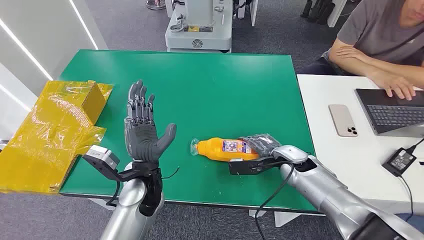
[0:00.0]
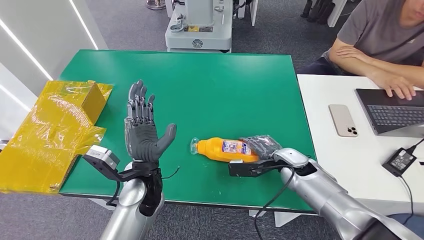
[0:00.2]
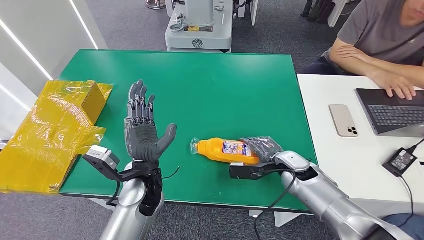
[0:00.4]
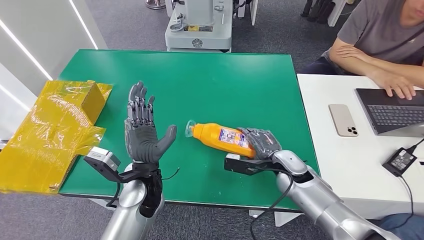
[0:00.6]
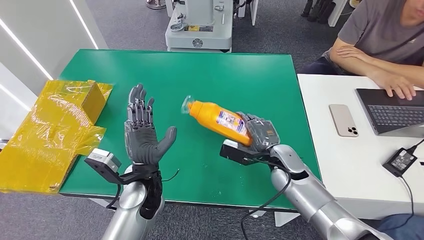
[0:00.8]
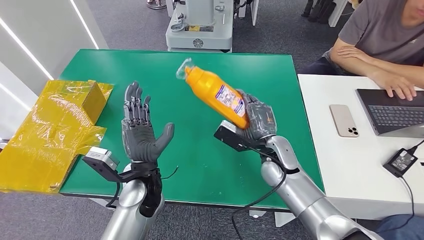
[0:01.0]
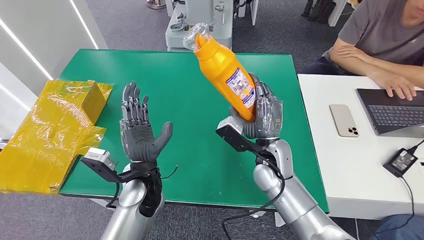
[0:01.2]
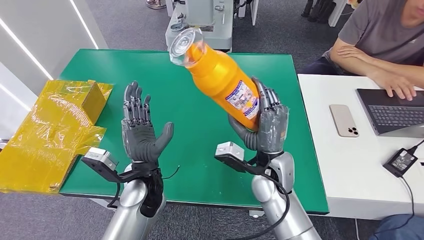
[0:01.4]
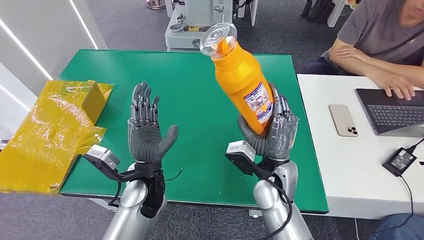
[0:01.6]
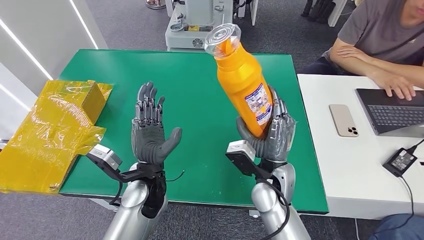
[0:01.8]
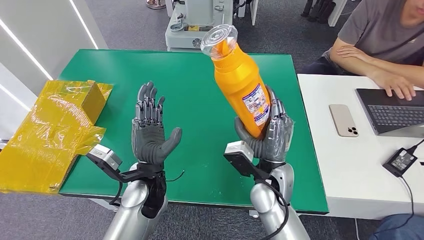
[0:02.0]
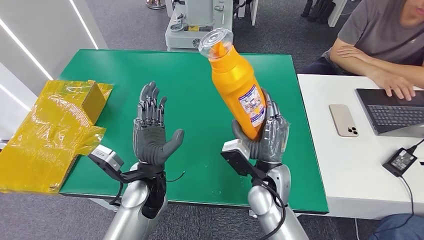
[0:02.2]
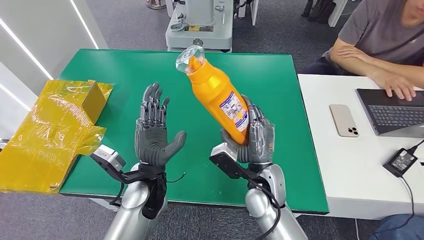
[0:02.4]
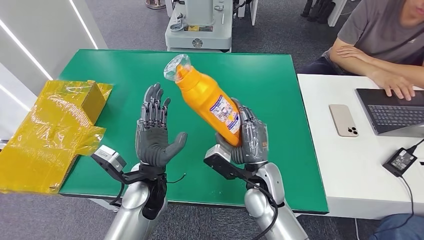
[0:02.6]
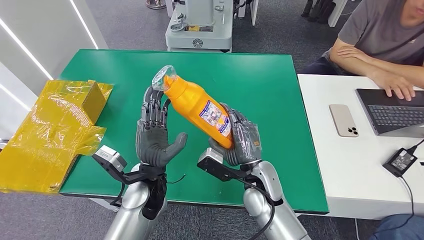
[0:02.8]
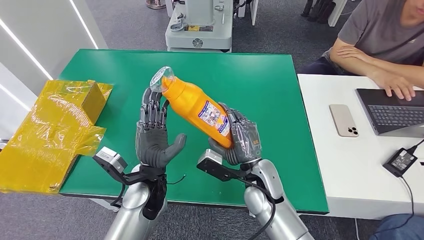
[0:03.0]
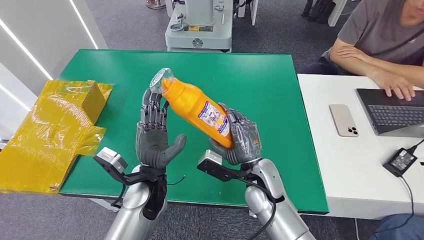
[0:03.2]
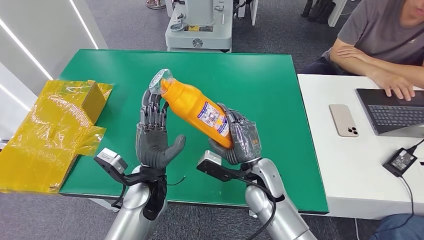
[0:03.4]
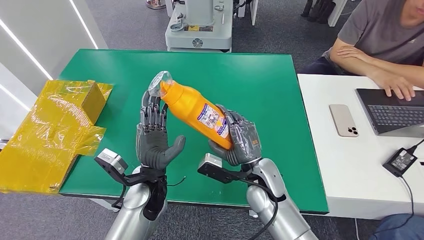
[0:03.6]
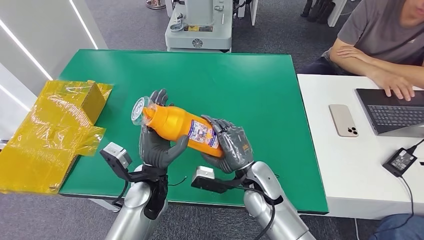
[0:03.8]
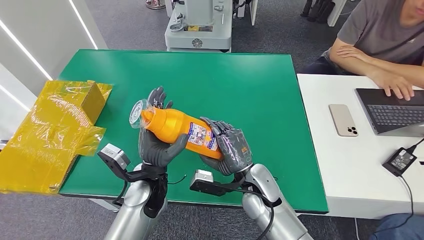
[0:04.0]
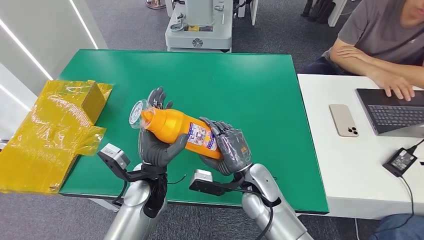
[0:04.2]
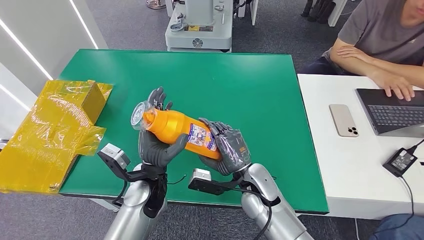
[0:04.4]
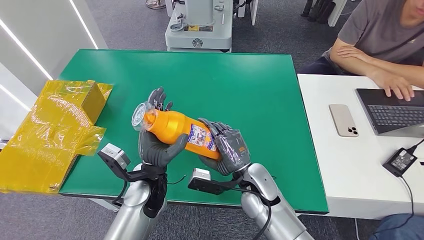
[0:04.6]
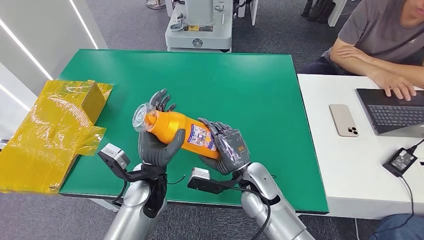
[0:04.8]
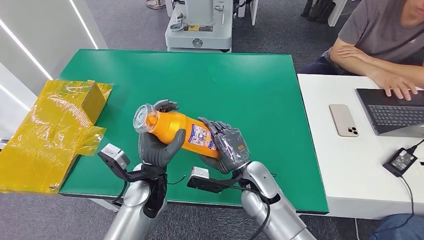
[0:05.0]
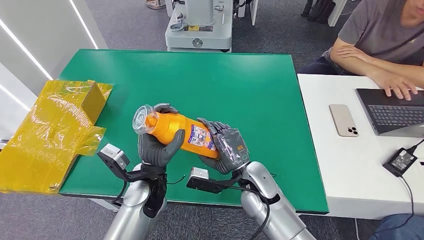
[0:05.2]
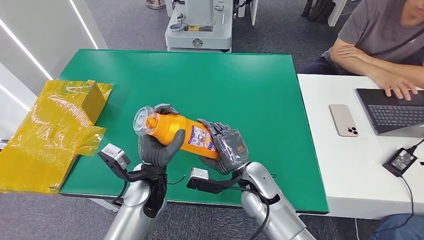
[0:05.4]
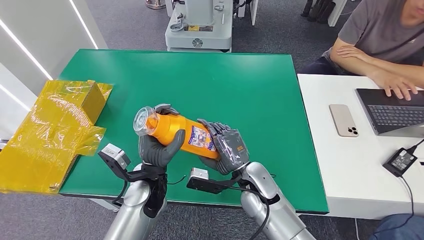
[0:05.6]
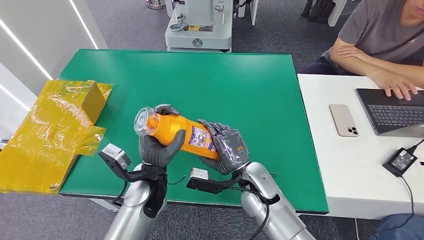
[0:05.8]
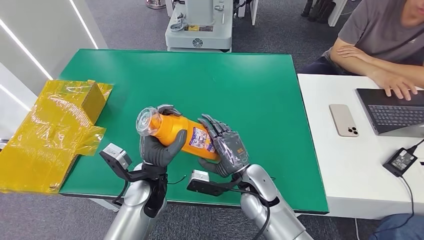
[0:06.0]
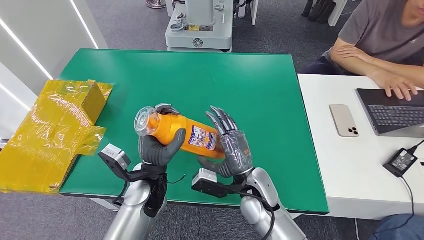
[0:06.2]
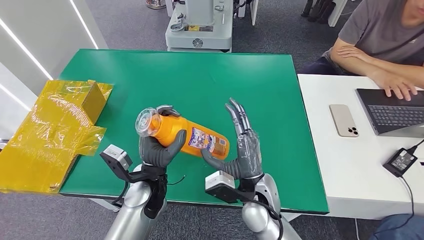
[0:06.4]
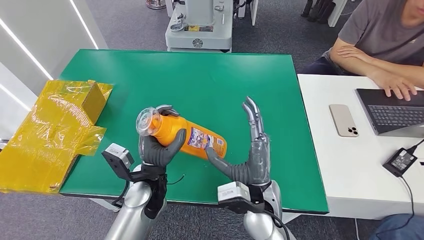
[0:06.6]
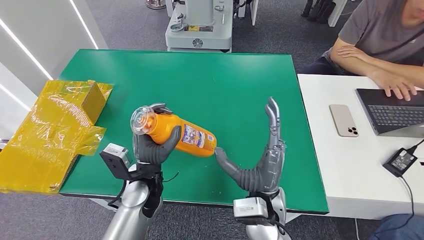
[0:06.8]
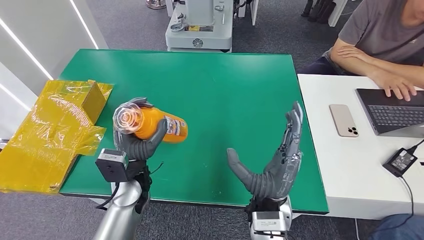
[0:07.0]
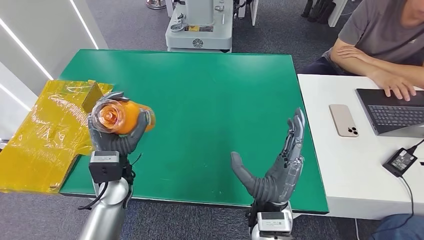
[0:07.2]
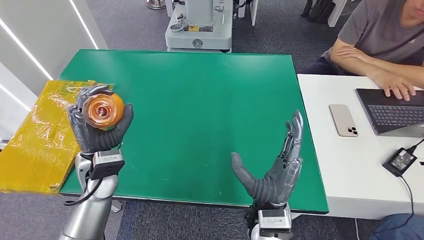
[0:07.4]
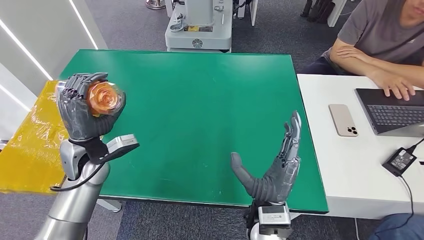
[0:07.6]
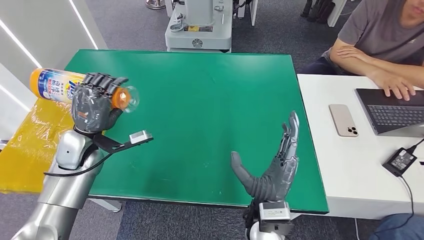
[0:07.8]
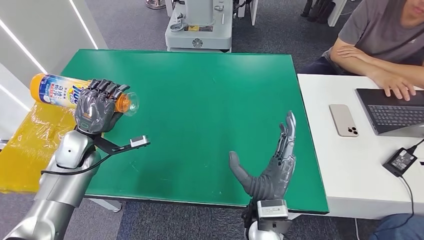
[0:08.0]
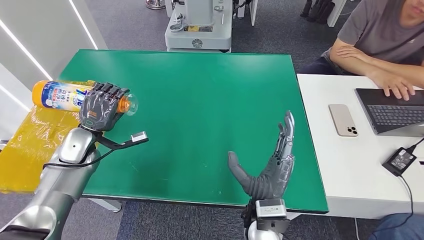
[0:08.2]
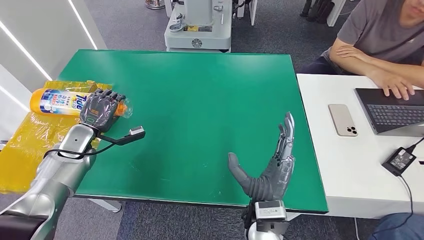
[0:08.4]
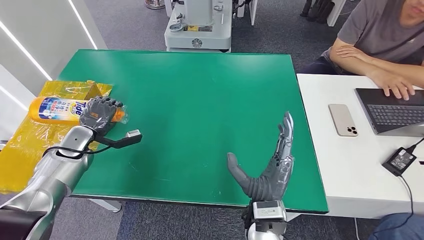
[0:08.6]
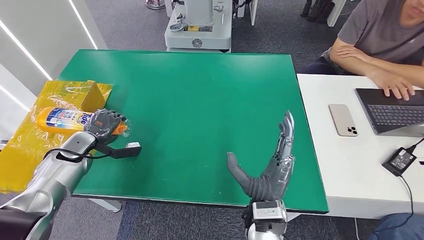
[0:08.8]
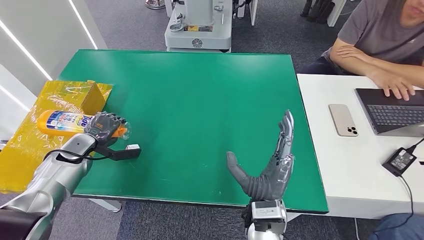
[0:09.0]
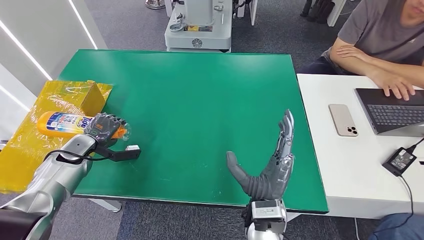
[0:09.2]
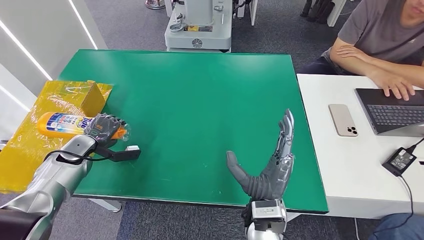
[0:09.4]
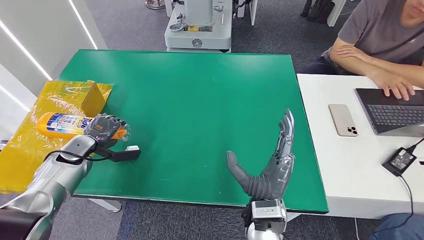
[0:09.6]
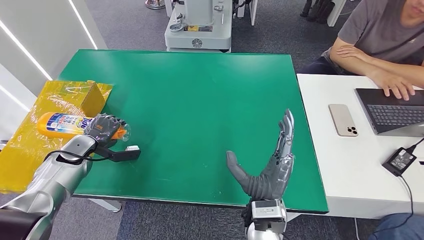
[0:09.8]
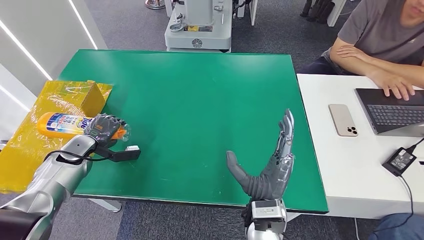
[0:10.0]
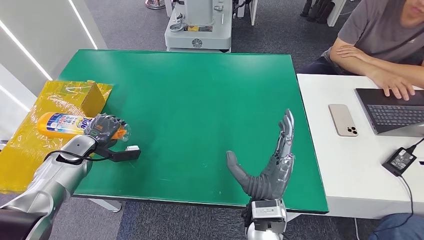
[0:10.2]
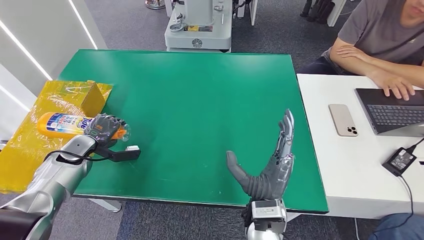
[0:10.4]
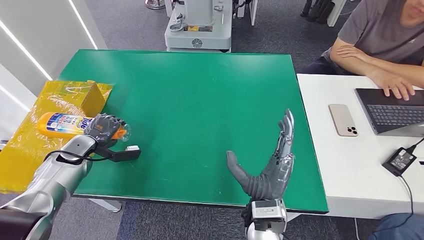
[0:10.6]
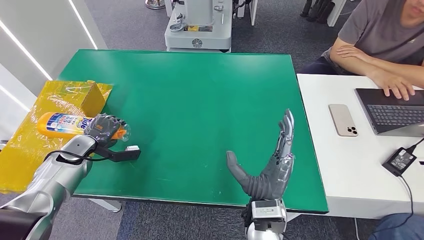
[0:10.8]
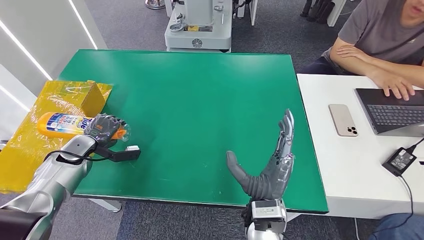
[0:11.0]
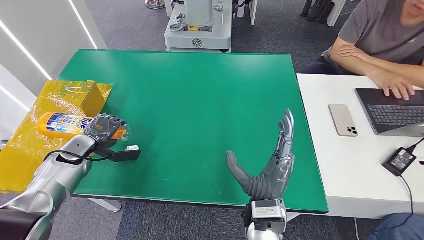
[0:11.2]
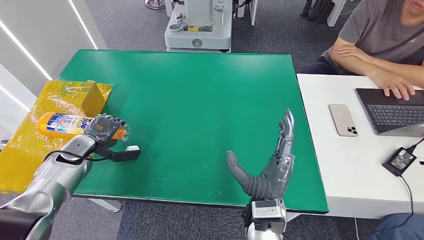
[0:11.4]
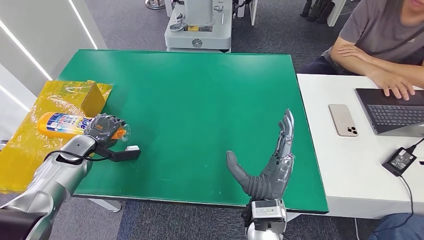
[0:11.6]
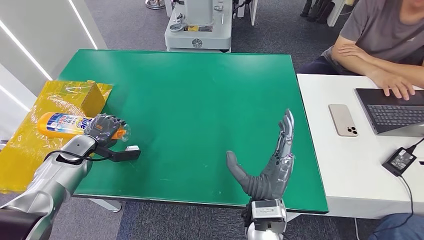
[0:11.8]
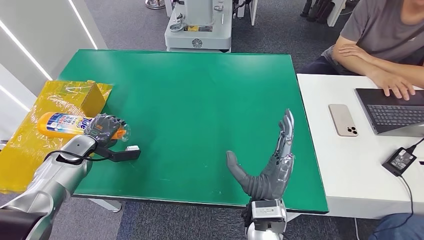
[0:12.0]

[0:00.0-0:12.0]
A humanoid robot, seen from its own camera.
Step, 0:00.0 to 0:01.6: Pick up the bottle from the table.
0:03.0 to 0:04.4: There are only small adjustments of the hands.
0:04.4 to 0:06.0: Both hands stay about where they are.
0:06.0 to 0:07.6: The left hand heads to the left, covering roughly 15 cm, while the right hand moves backward, roughly 10 cm.
0:07.6 to 0:09.0: The left hand goes roughly 15 cm to the left and downward.
0:09.0 to 0:12.0: The two hands keep their place.

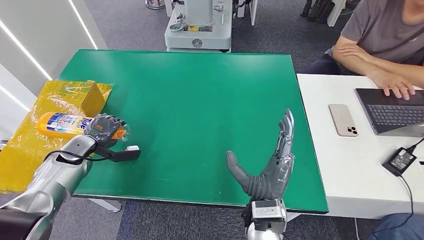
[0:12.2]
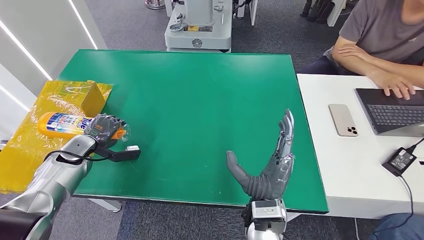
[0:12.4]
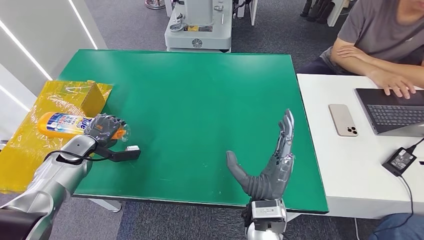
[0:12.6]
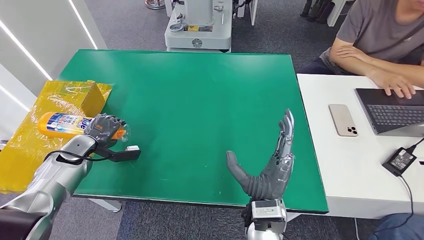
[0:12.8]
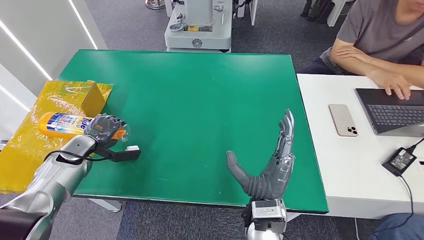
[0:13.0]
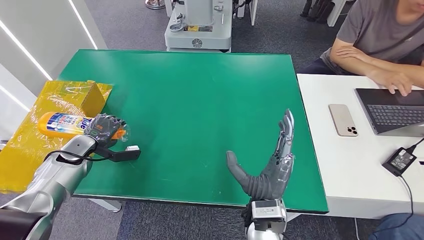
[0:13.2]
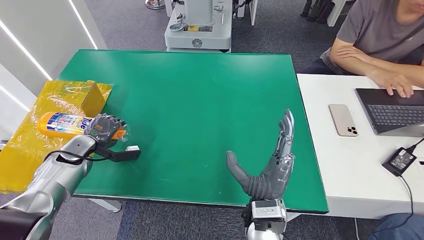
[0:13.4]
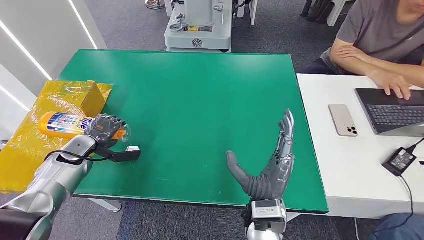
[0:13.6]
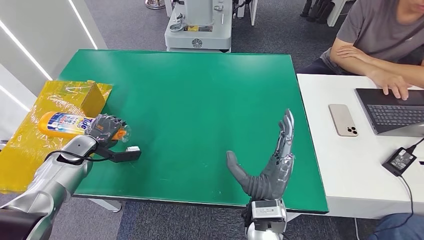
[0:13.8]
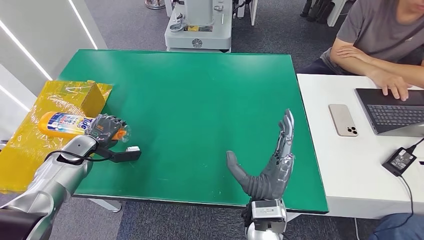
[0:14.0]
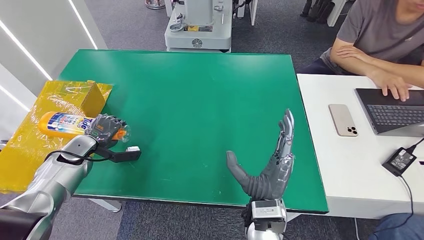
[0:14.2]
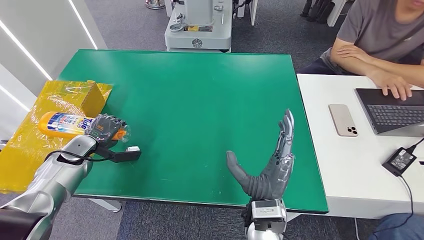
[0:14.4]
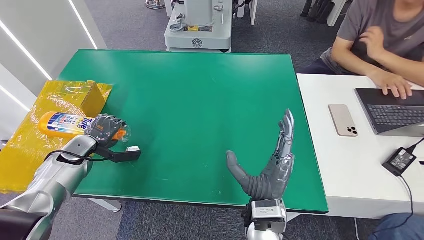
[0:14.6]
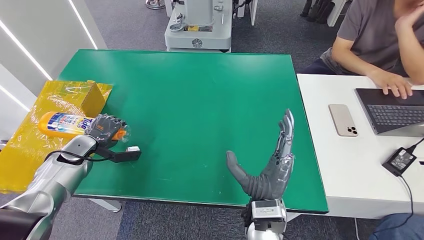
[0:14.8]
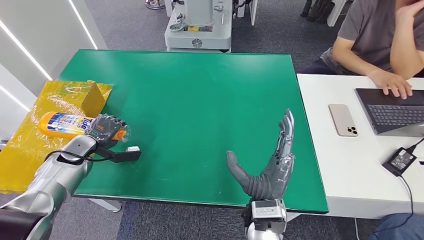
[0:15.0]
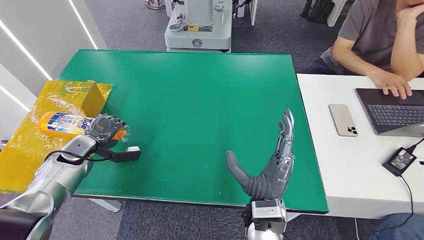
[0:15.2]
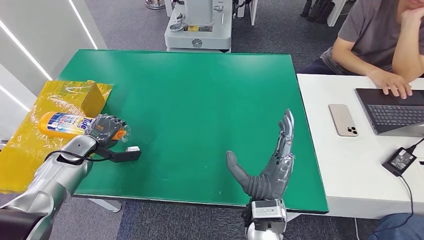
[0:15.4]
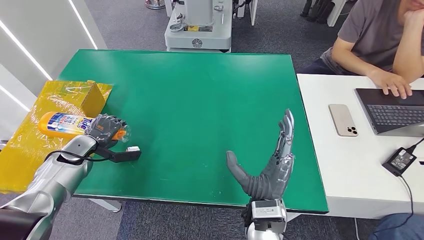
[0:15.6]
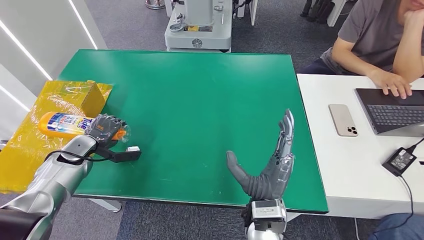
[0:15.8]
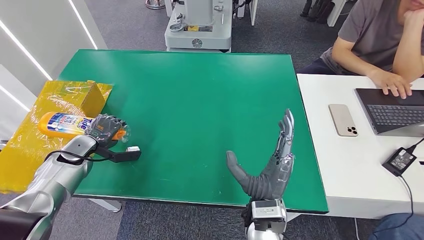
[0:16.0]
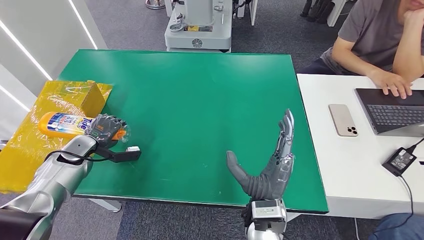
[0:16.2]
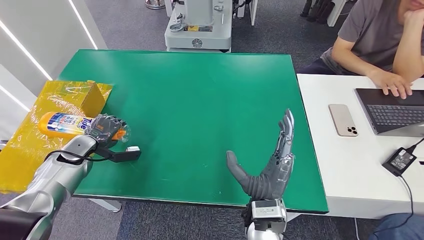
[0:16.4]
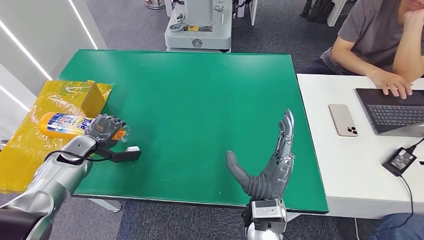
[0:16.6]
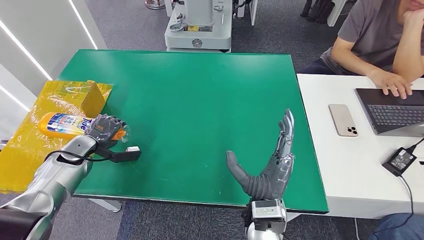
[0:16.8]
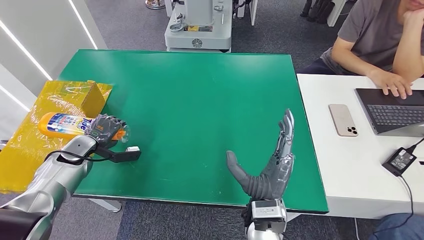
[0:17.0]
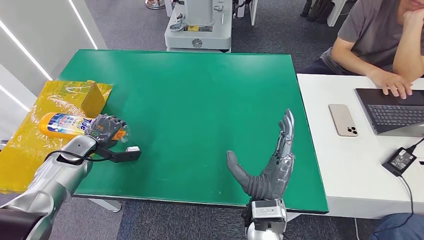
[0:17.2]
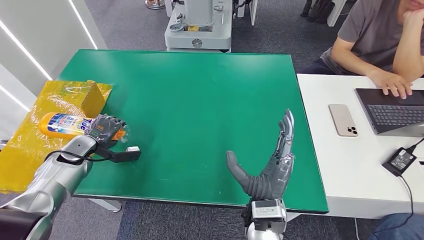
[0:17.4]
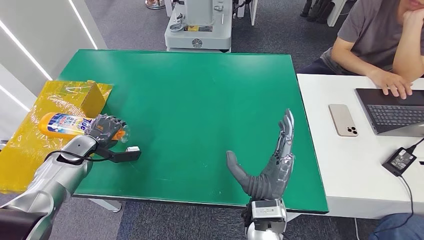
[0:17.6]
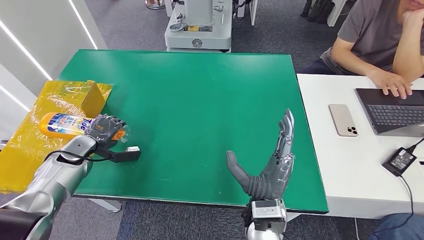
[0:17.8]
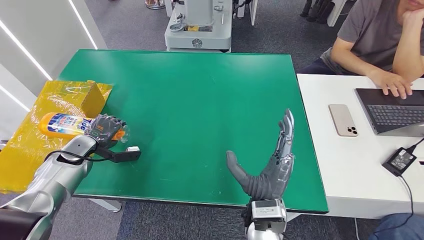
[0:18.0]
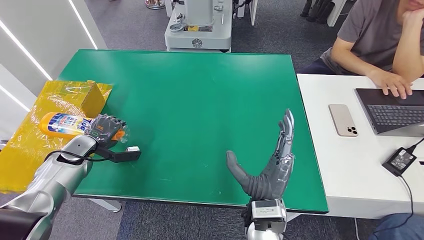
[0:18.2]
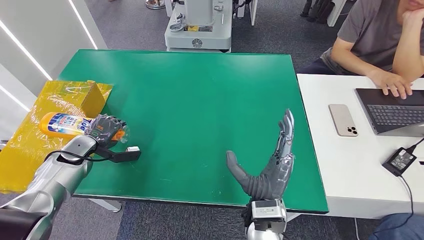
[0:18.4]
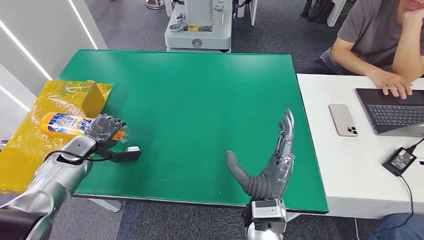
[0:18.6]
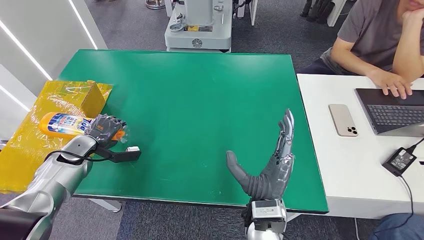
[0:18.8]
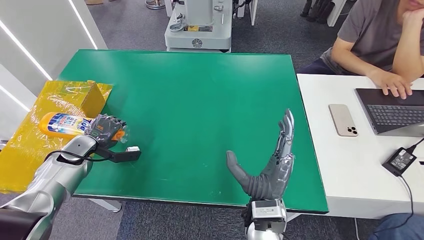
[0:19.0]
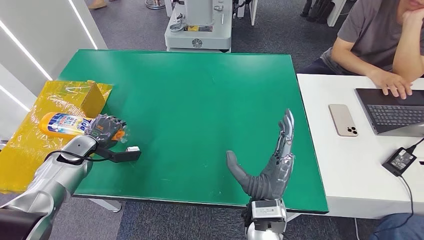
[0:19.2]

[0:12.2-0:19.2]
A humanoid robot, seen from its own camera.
0:12.2 to 0:19.2: Neither hand changes place.
